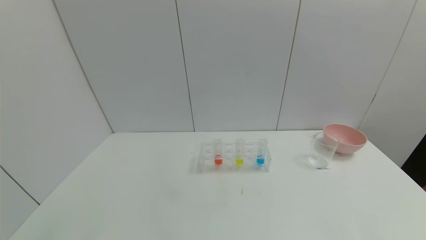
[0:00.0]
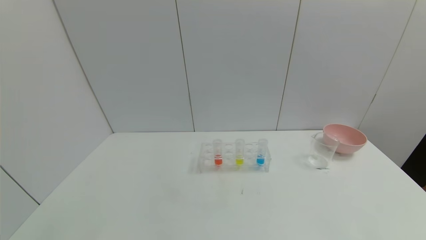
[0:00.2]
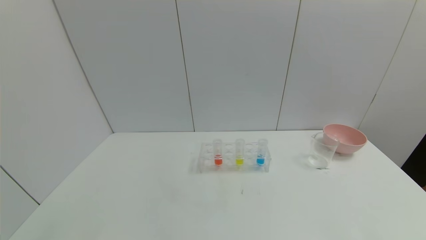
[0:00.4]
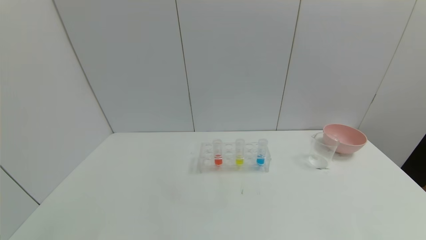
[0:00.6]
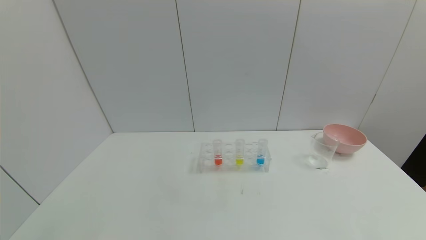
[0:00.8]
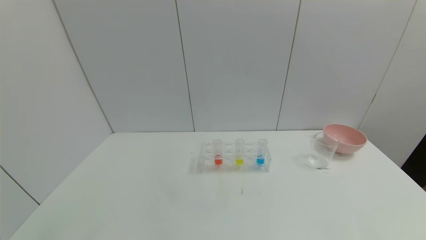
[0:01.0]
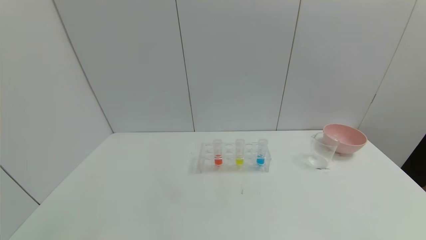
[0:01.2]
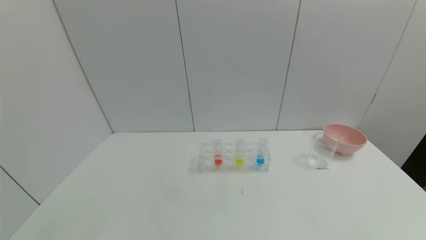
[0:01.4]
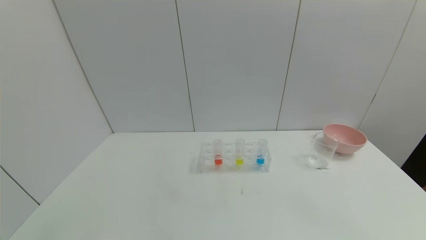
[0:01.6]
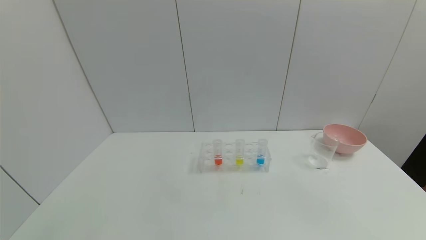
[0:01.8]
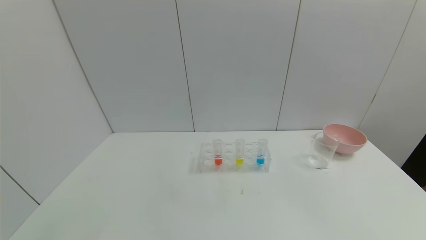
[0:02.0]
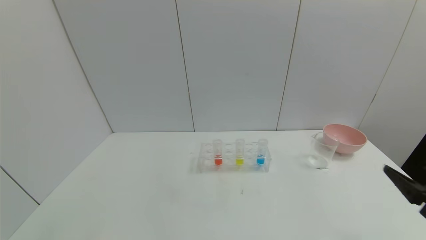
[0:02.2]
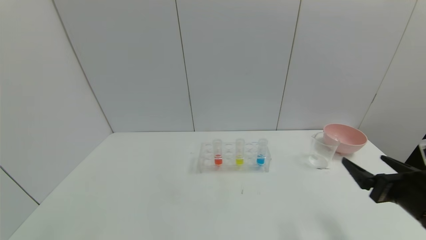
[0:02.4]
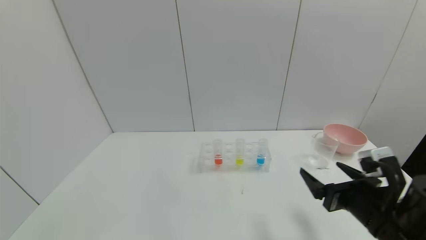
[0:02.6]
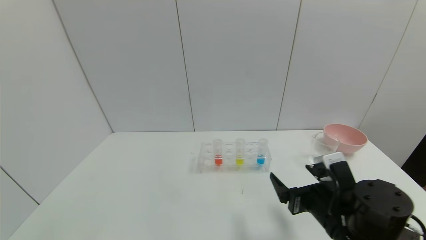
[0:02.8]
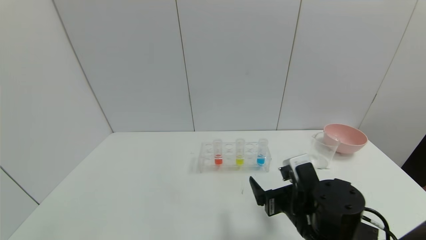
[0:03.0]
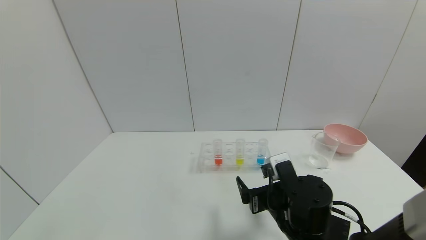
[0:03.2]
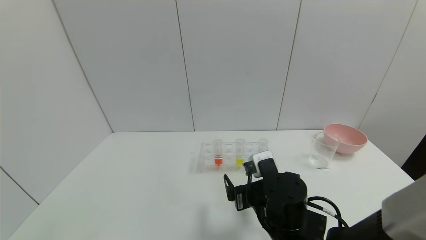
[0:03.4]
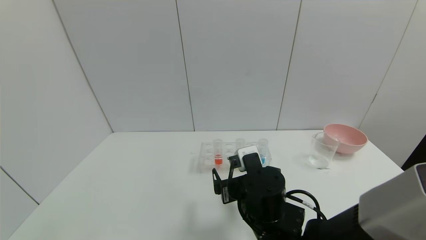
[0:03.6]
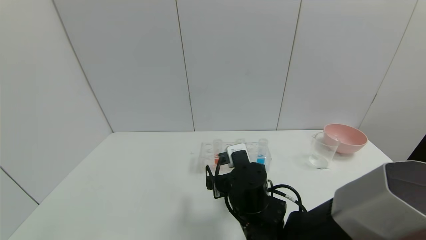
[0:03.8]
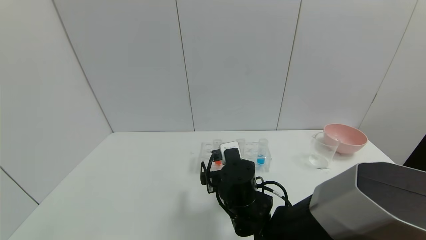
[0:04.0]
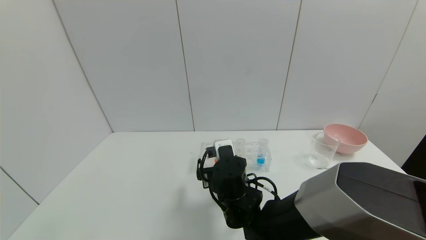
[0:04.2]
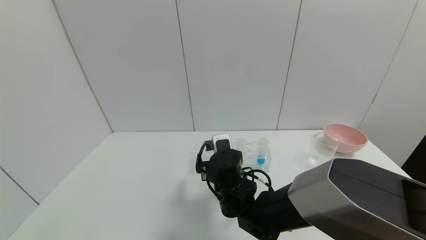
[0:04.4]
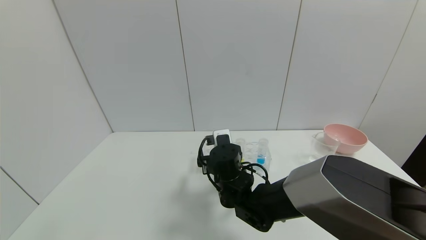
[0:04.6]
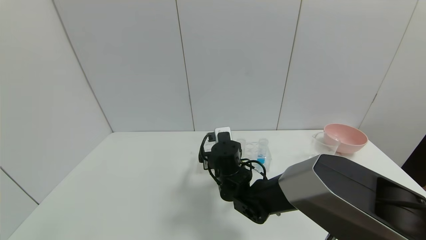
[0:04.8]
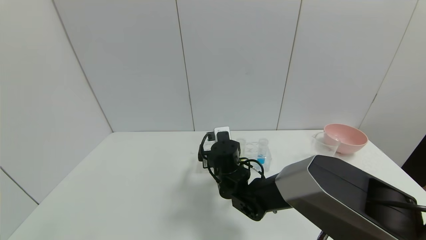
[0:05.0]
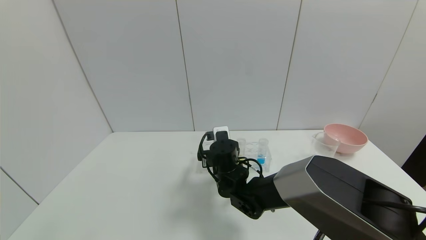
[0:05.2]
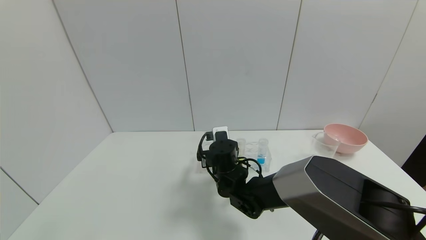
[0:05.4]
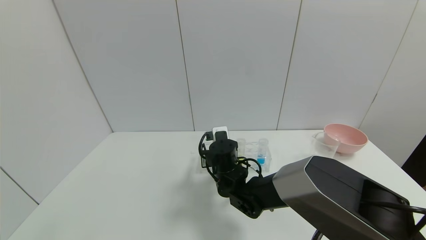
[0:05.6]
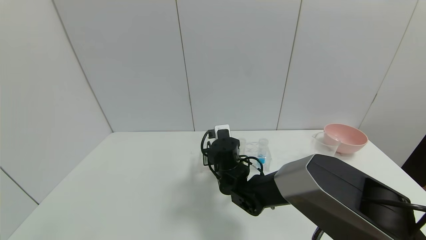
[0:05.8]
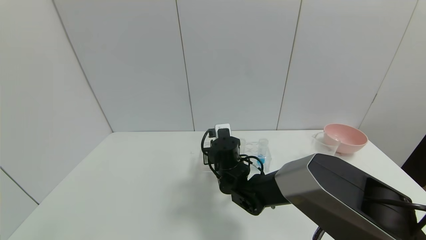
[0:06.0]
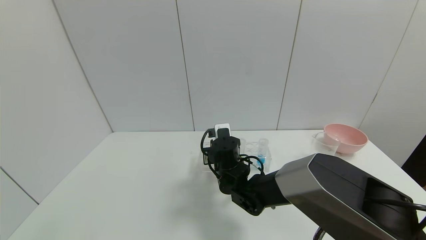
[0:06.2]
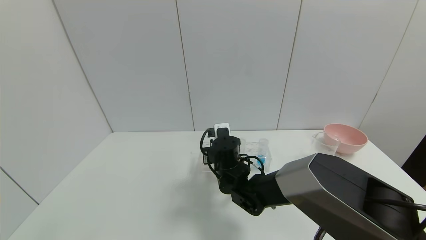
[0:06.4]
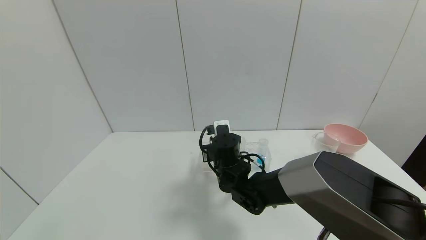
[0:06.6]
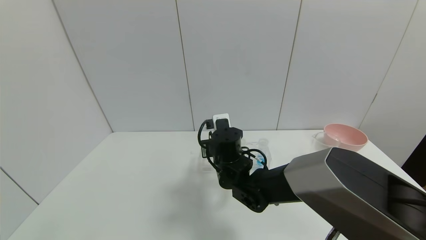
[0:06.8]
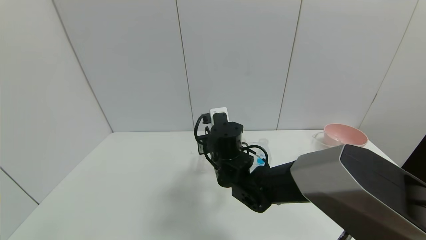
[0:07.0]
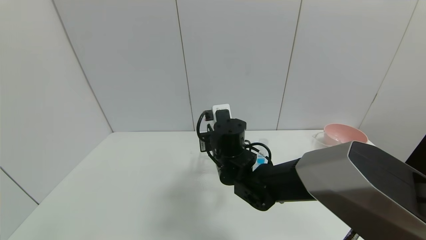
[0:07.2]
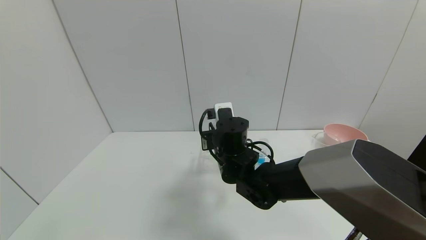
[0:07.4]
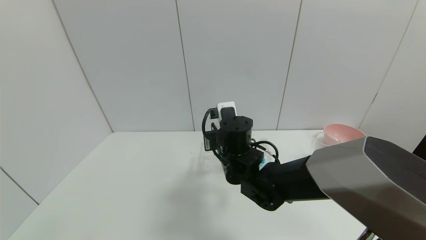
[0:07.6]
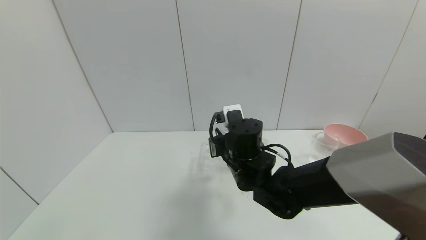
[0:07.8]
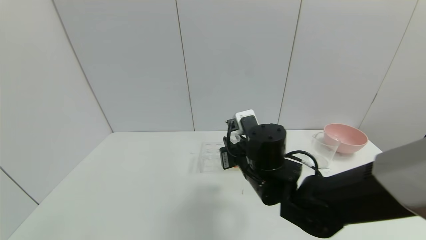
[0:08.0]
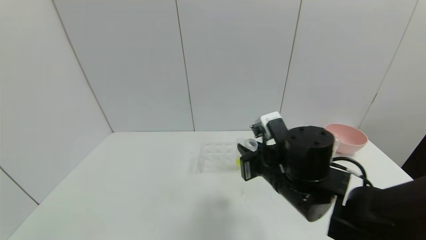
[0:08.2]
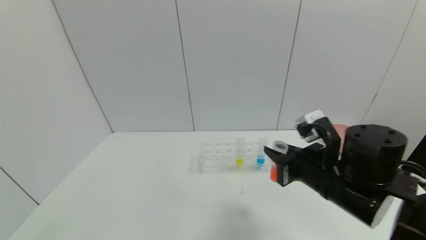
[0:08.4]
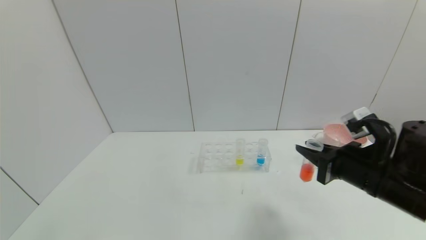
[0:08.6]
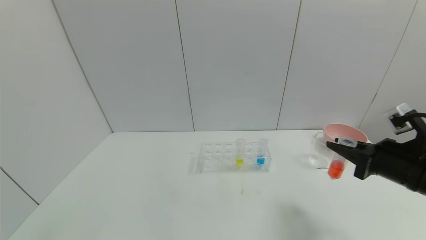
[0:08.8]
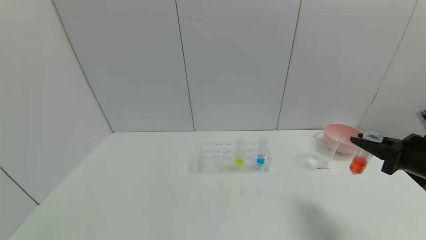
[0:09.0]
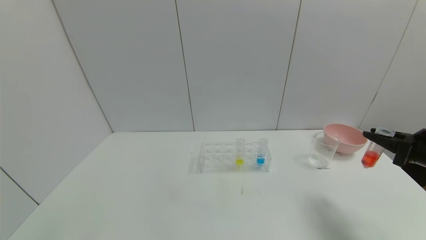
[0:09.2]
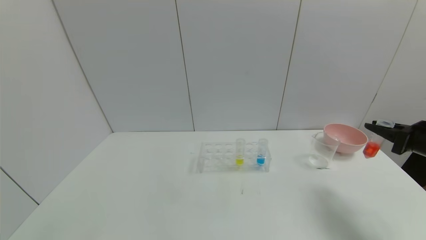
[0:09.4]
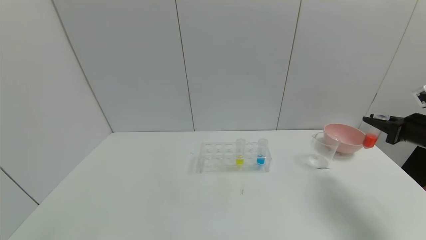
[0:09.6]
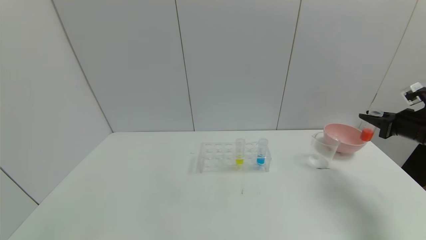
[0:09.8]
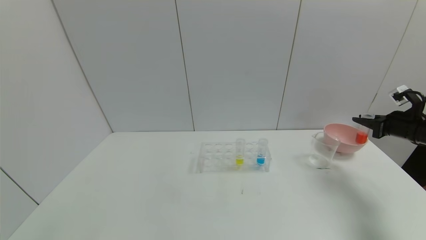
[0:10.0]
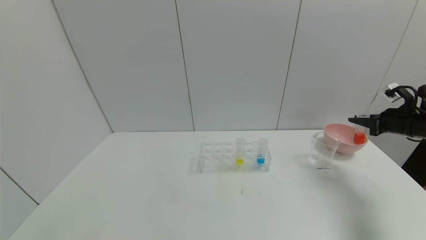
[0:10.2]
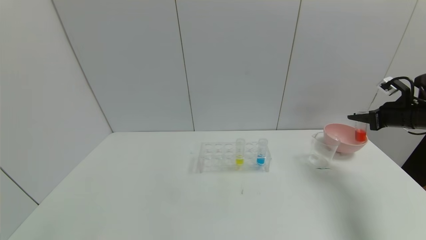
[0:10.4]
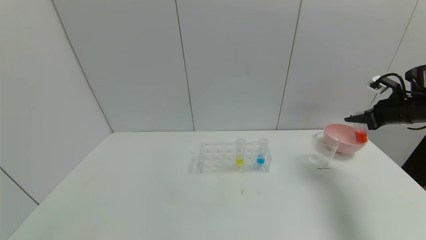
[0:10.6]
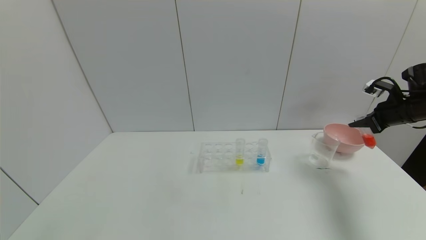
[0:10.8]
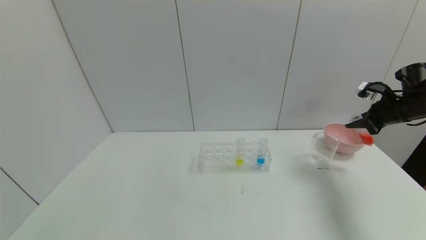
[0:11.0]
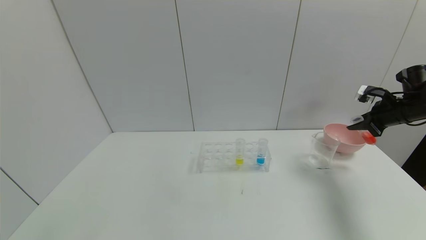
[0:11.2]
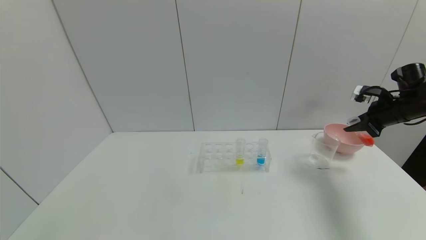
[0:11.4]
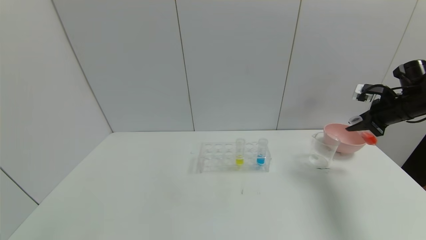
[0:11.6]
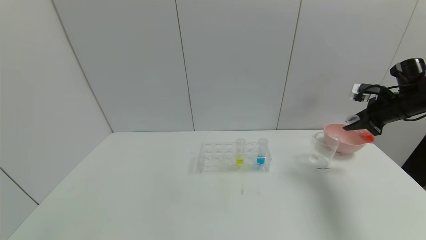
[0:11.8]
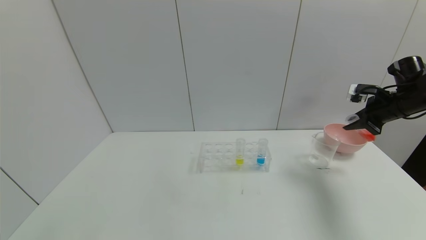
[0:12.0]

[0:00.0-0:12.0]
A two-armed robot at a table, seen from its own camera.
Task of the whole recording: pick up the test tube with red pigment and the test tube with blue pigment by grippers and pour them into the container.
Step, 0:00.0 to 0:06.2: Grasp the red reagent with the right gripper.
0:01.6 to 0:03.0: The right gripper goes about 30 cm forward and to the left.
0:03.0 to 0:04.4: The right gripper heads to the left and forward, covering about 15 cm.
0:04.4 to 0:06.0: The right gripper goes some 5 cm forward, and closes.
0:06.0 to 0:07.6: The right gripper is displaced upward by approximately 5 cm.
0:07.6 to 0:09.0: The right gripper shifts approximately 35 cm to the right.
0:09.0 to 0:10.4: The right gripper moves forward and to the right, roughly 20 cm.
0:10.4 to 0:12.0: The right gripper moves about 5 cm.

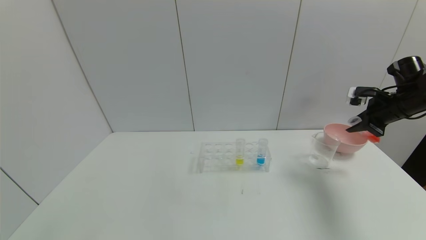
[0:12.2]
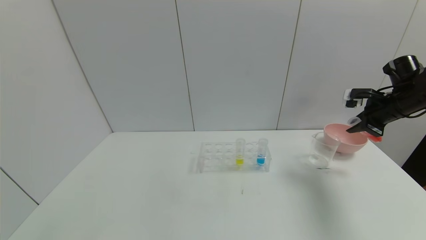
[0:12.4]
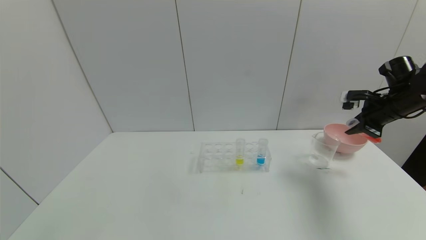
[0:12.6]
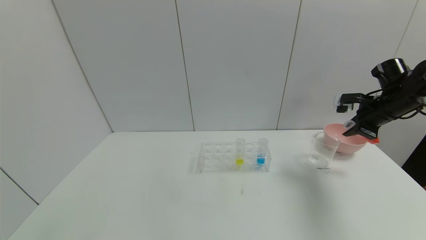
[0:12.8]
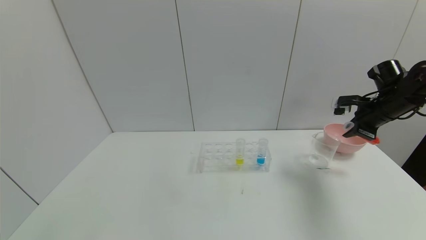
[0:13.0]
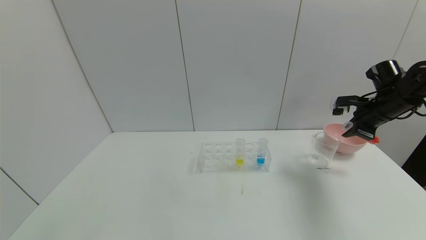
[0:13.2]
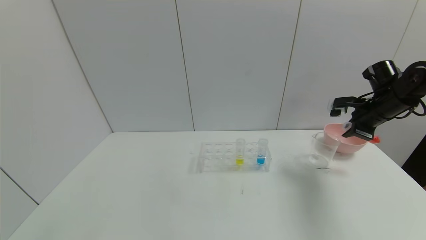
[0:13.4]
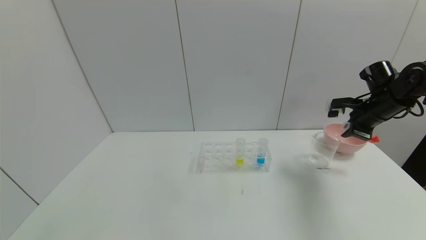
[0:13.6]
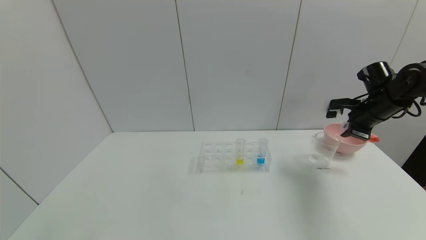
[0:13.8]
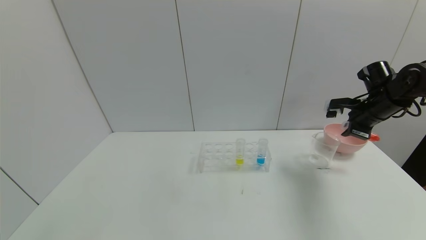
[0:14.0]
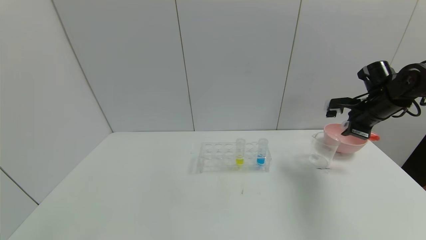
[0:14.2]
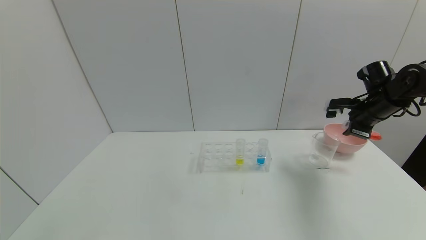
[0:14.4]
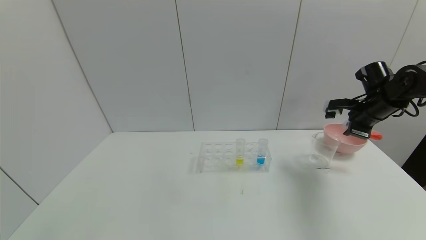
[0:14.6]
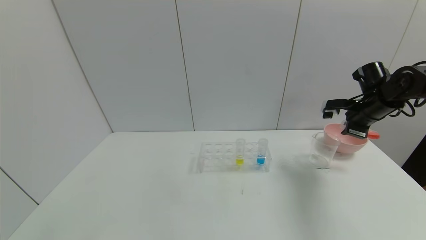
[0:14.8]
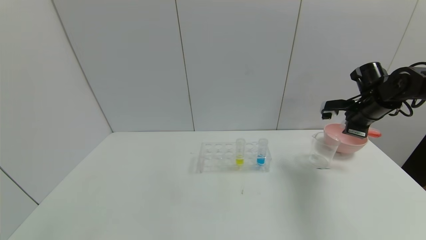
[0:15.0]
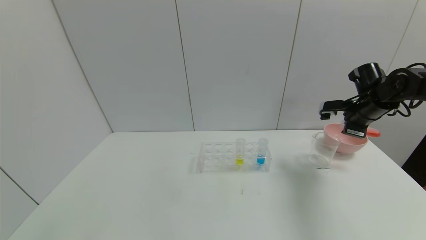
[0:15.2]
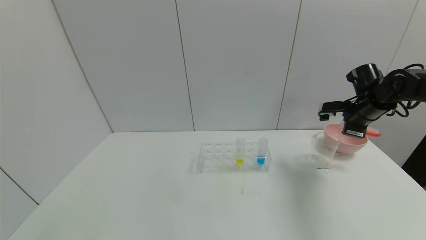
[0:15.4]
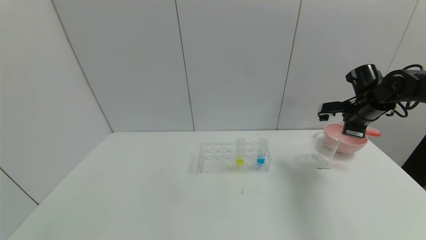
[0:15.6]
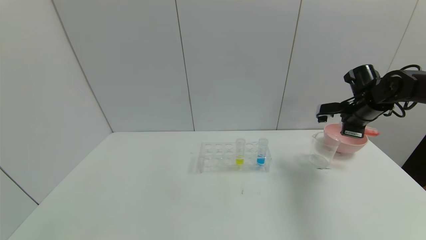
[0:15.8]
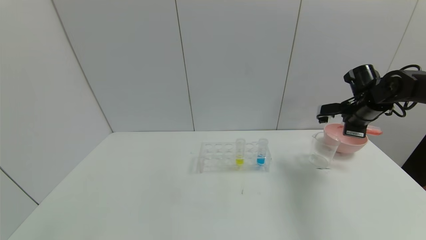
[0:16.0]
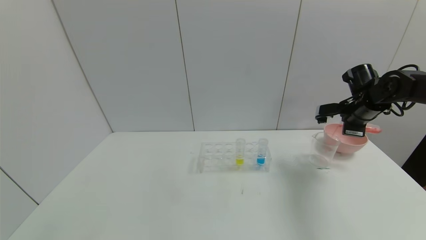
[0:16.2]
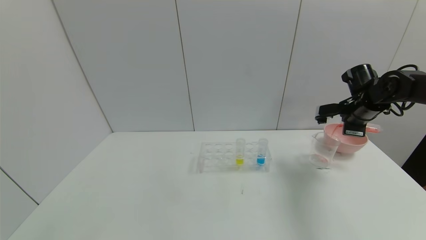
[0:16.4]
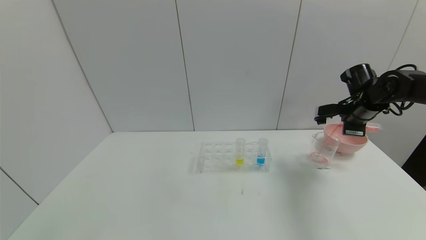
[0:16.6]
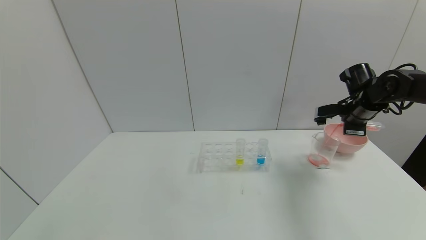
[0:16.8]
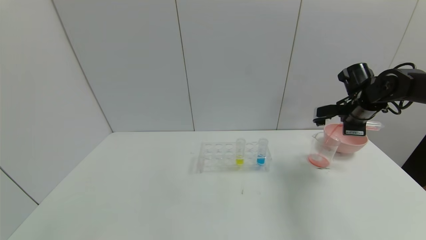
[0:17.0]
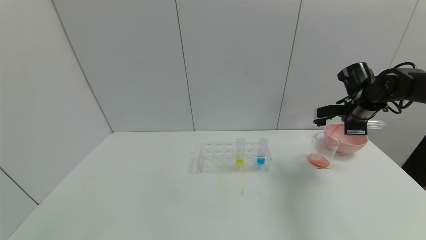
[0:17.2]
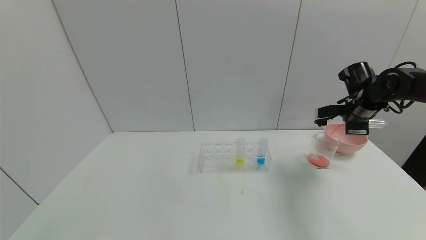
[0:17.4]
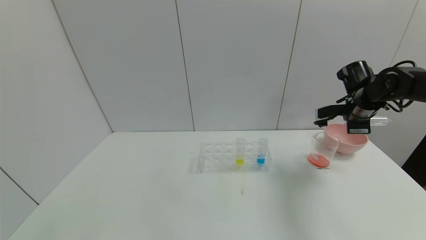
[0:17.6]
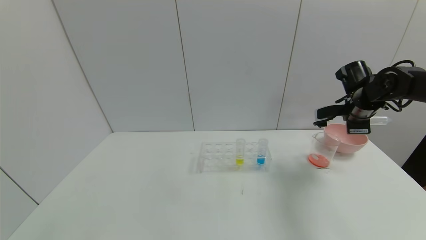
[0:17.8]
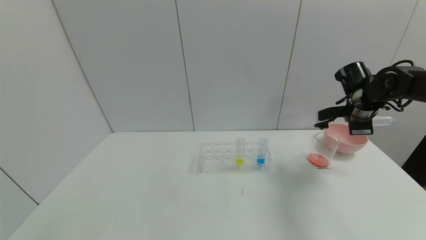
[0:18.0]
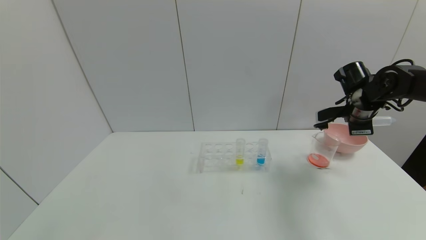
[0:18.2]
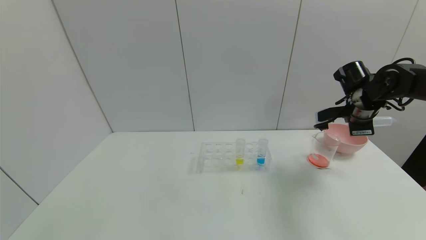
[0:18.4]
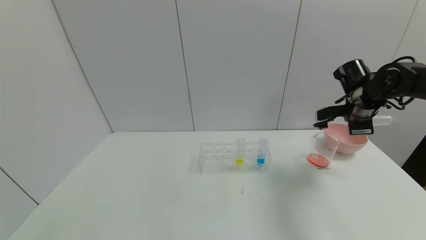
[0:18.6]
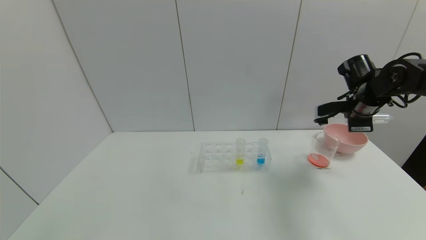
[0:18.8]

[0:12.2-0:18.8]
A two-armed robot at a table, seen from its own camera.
Task of the whole recording: pick up the test tube with red pigment and the test tube with blue pigment by grippers and pour them into the container.
Step, 0:12.2 to 0:18.0: Pour the red reagent into the graduated cylinder with the right gripper.
0:12.2 to 0:13.8: The grippers stay close to where they were, moving slightly.
0:13.8 to 0:15.4: The grippers move only a little.
0:15.4 to 0:17.2: The grippers move only a little.
0:17.2 to 0:18.8: The grippers move only a little.
